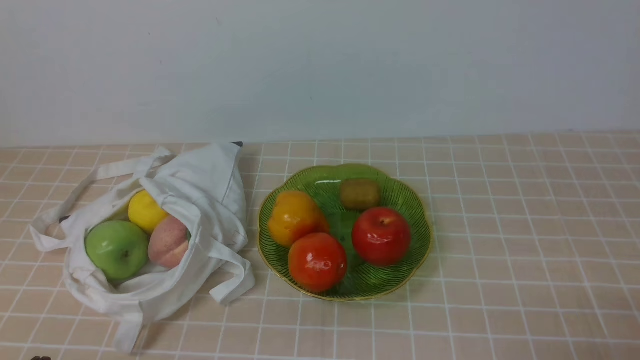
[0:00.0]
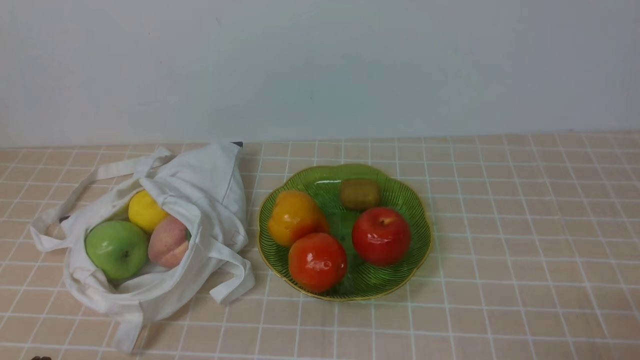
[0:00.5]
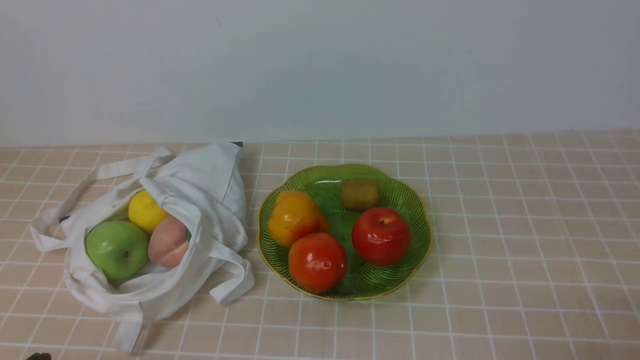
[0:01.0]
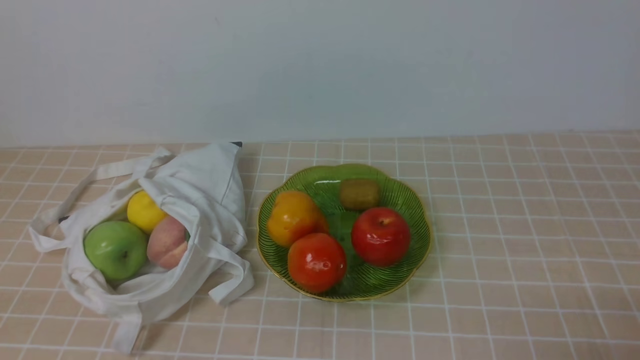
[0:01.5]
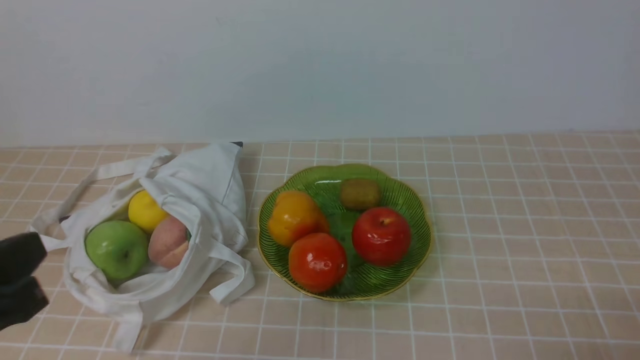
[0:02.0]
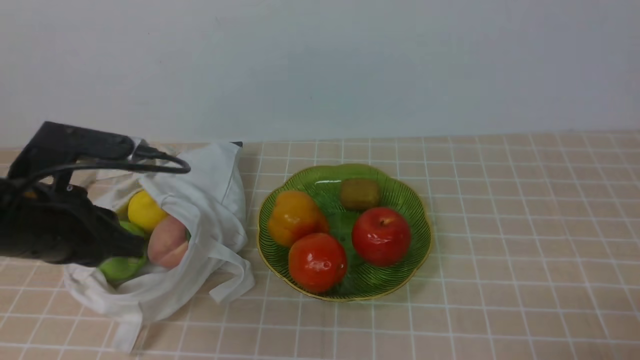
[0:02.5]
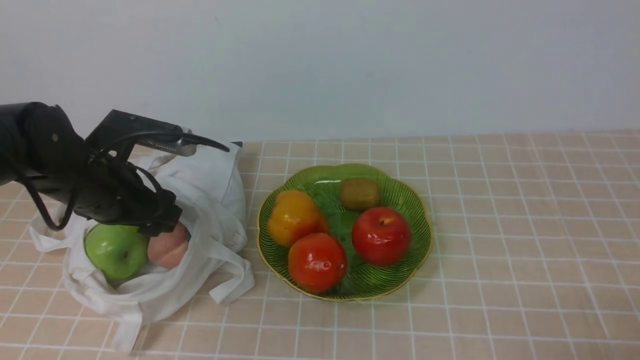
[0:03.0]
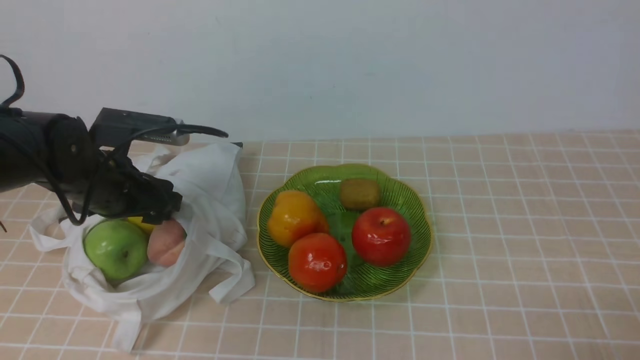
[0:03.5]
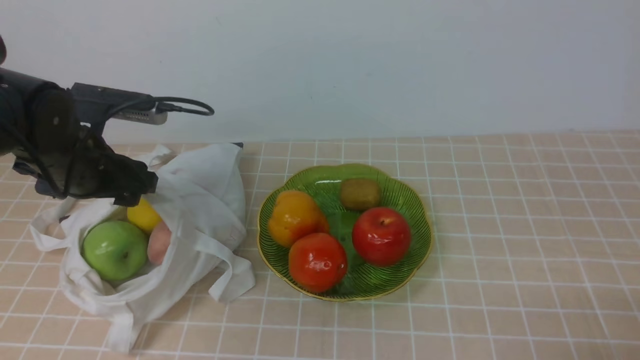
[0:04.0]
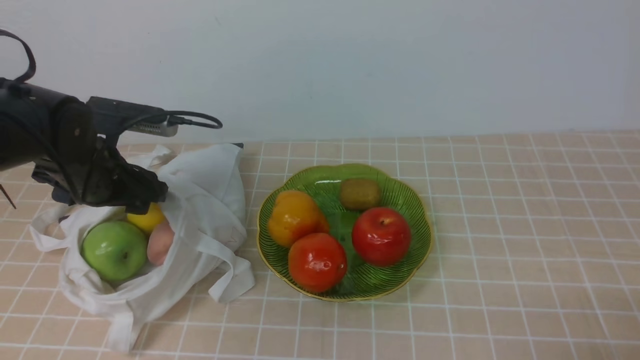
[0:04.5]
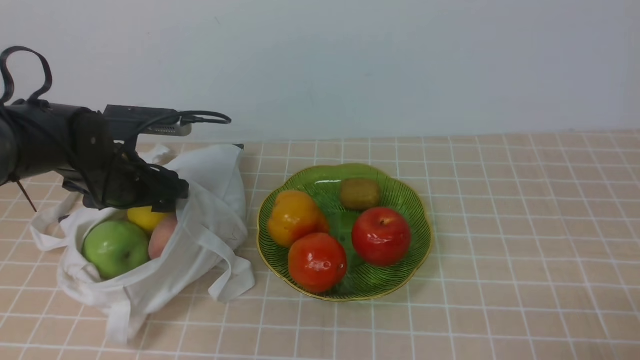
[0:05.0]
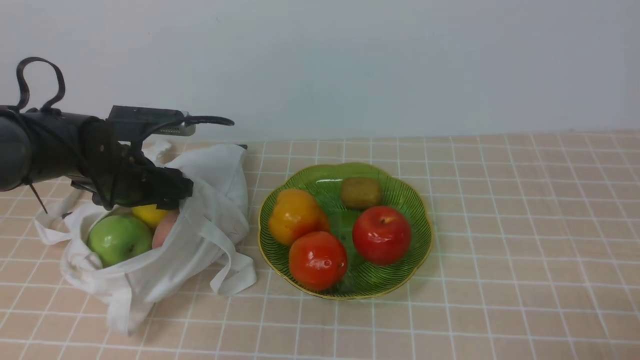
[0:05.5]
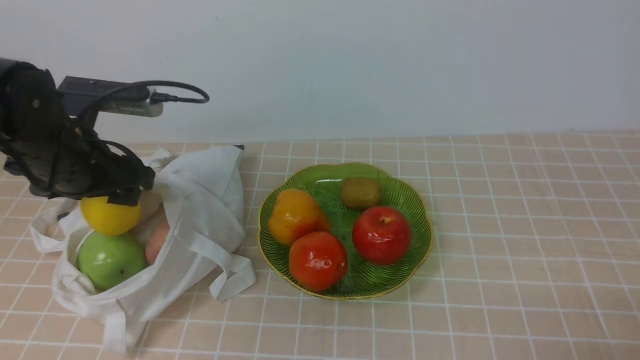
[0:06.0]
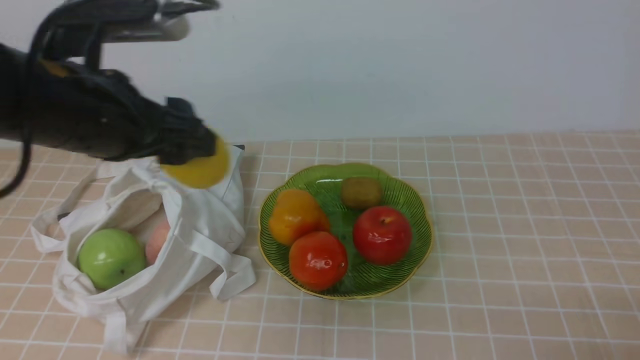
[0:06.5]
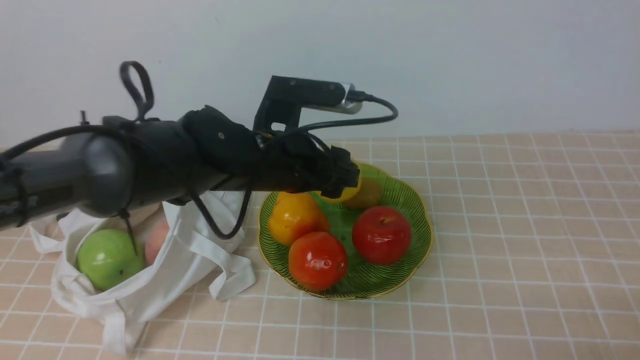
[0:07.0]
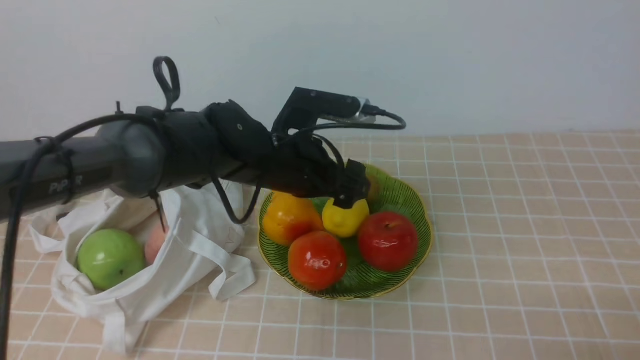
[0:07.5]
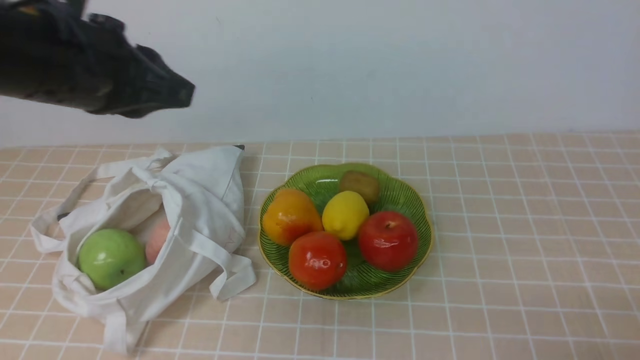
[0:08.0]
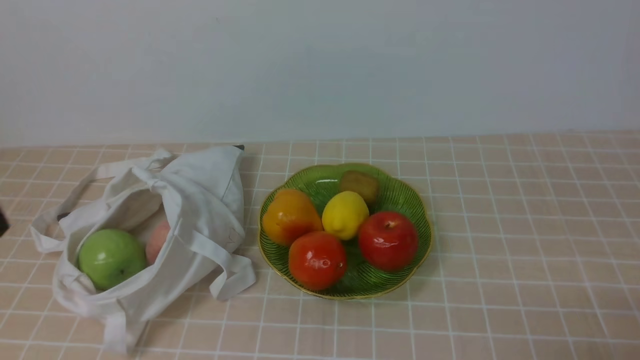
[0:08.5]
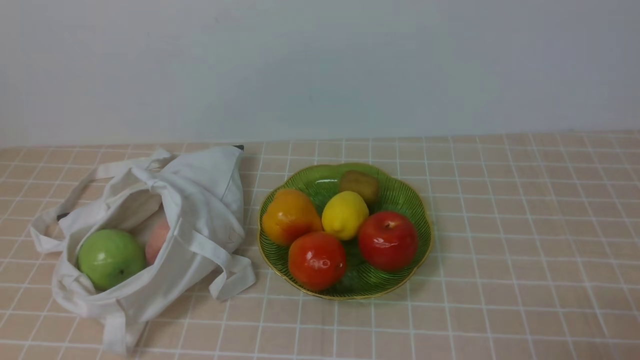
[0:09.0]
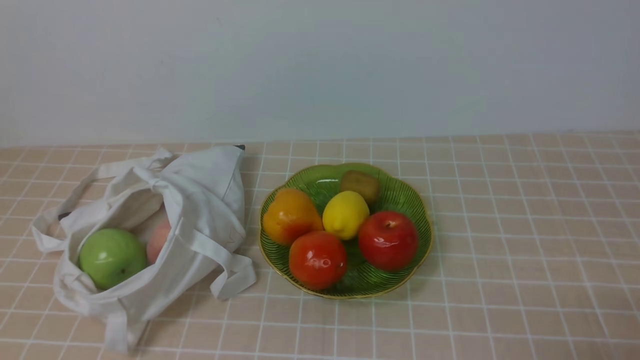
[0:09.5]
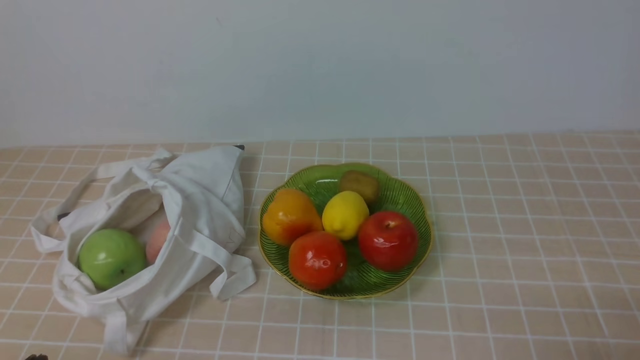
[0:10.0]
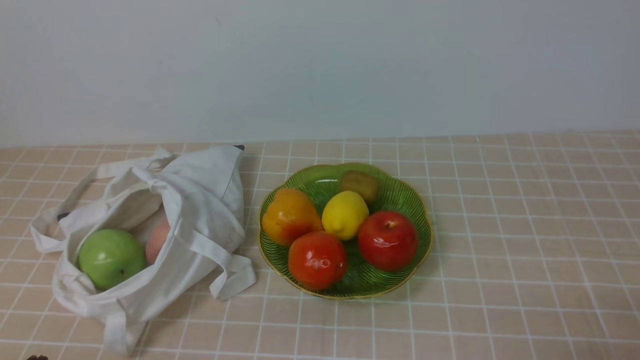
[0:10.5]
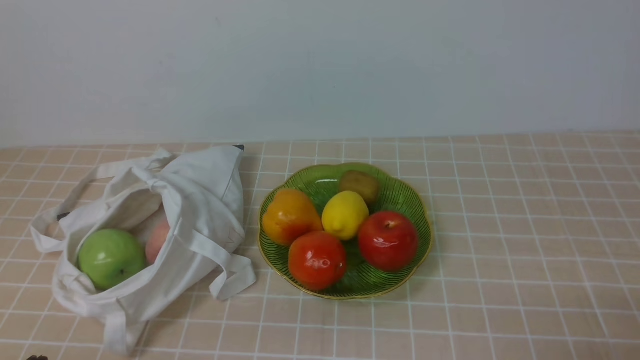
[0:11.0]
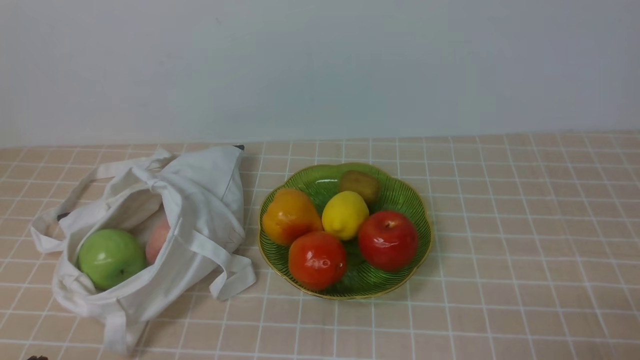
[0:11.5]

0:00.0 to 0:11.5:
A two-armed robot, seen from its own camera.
Step, 0:00.0 to 0:05.5: use the left arm to grab a lemon from the bag.
Step, 0:06.0 to 0:07.5: use the left arm to put the lemon into the empty plate on the right.
0:02.0 to 0:04.0: The left gripper travels forward by roughly 25 cm, and opens up.
0:04.0 to 0:06.0: The grippers move only a little.
0:06.0 to 0:07.5: The left gripper travels to the right by about 20 cm.
0:07.5 to 0:09.5: The left gripper moves backward and to the left, some 40 cm, and closes up.

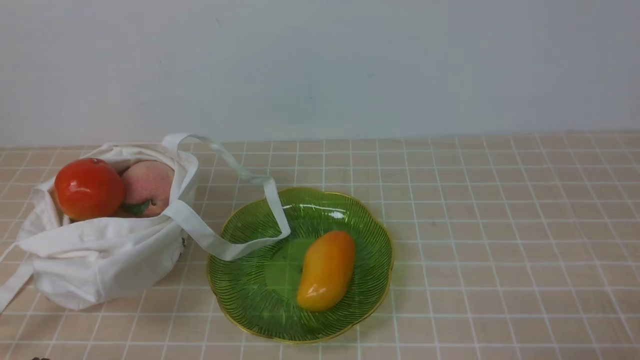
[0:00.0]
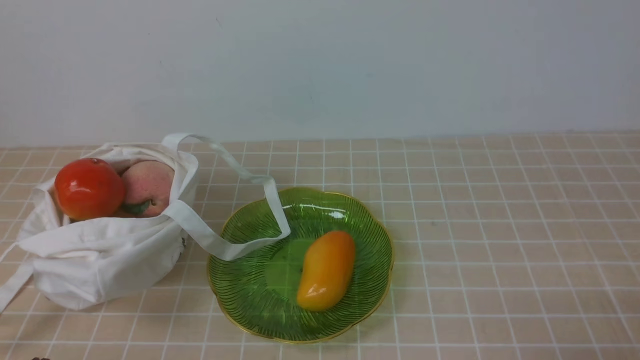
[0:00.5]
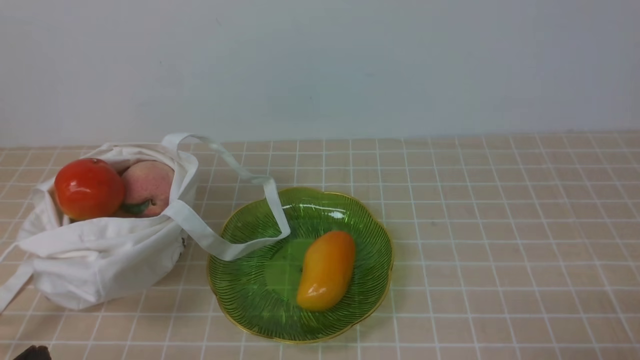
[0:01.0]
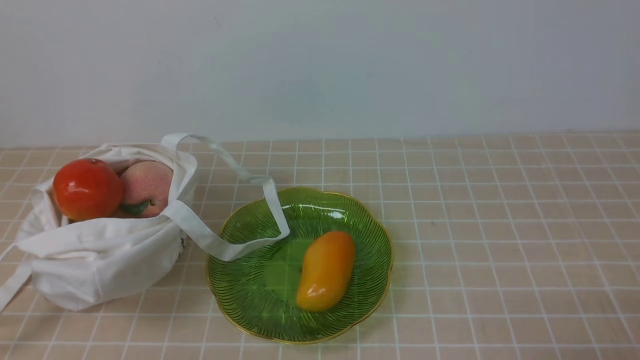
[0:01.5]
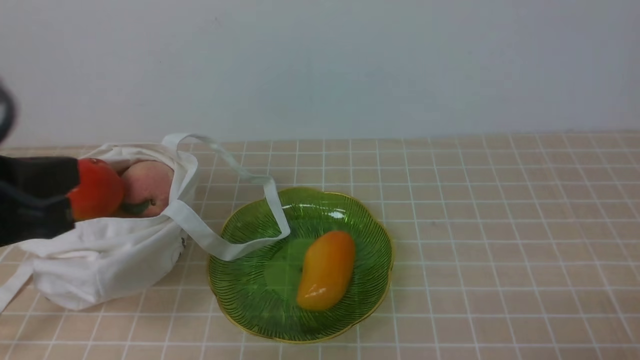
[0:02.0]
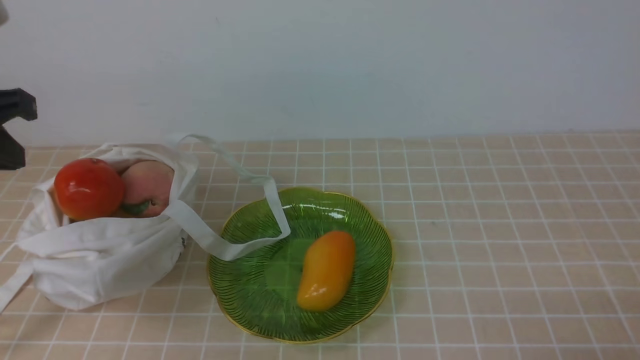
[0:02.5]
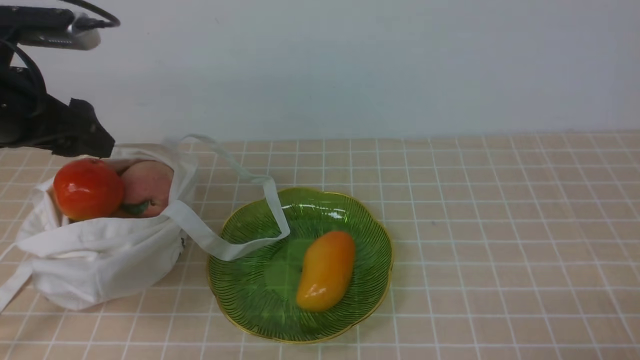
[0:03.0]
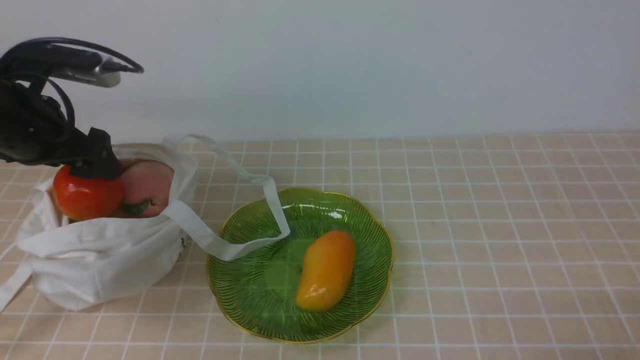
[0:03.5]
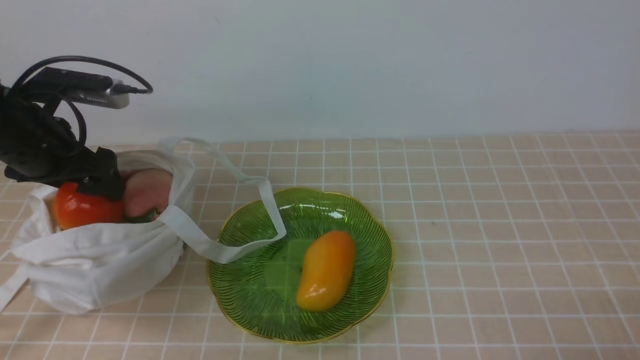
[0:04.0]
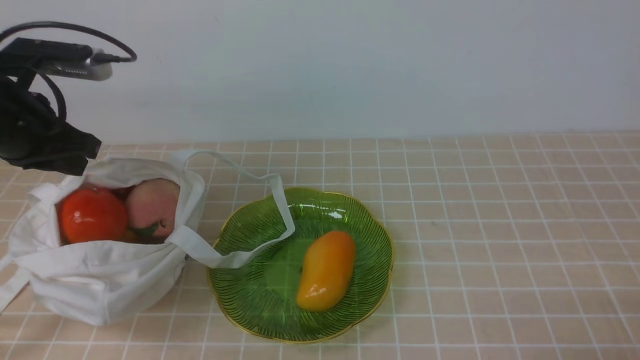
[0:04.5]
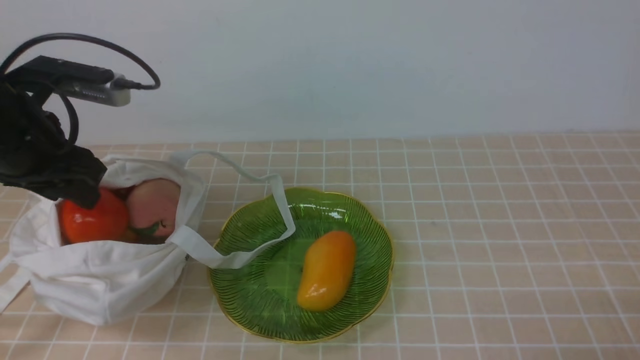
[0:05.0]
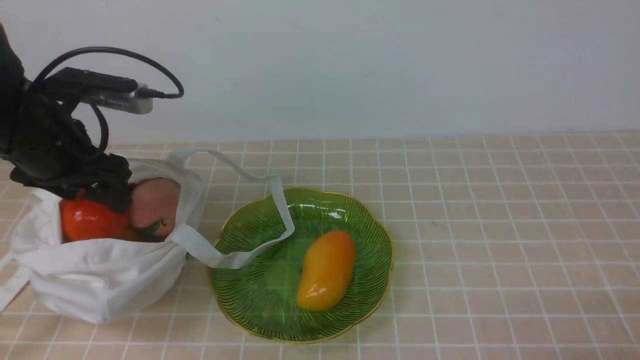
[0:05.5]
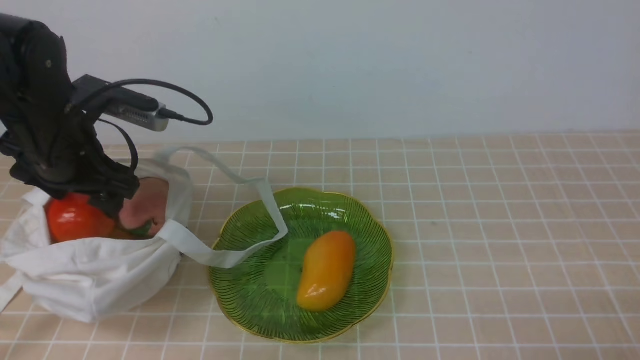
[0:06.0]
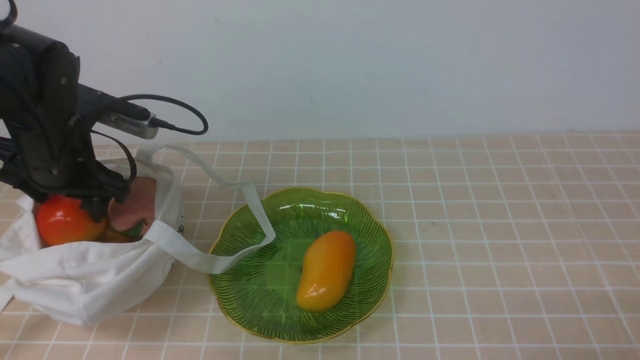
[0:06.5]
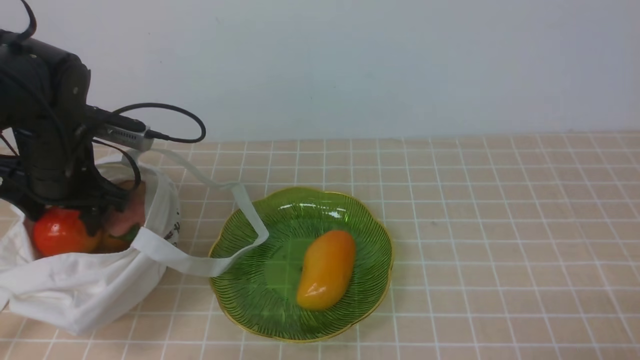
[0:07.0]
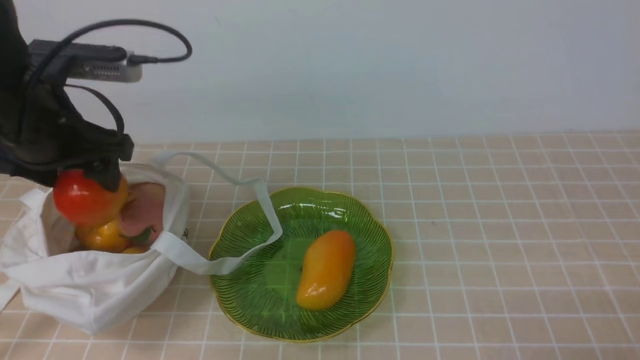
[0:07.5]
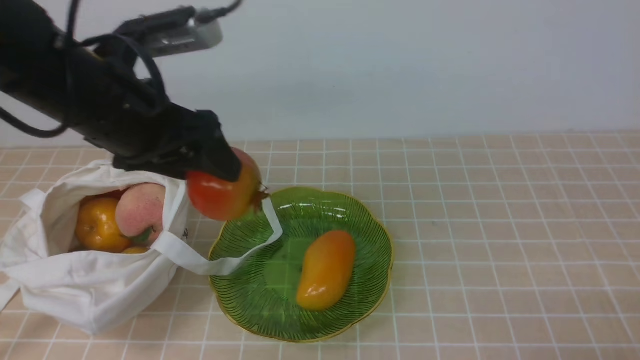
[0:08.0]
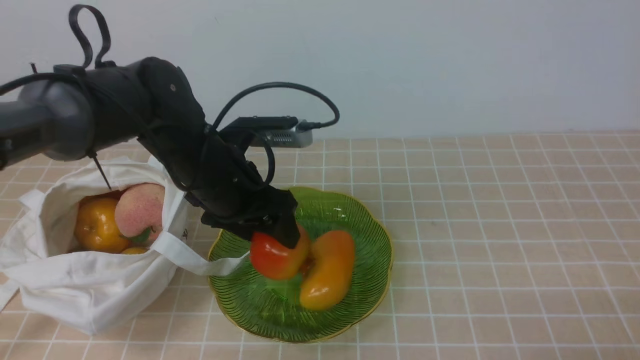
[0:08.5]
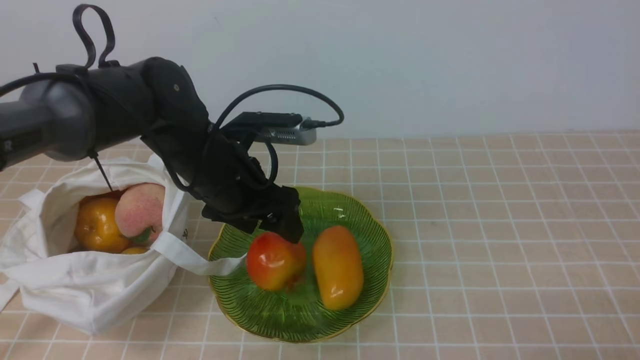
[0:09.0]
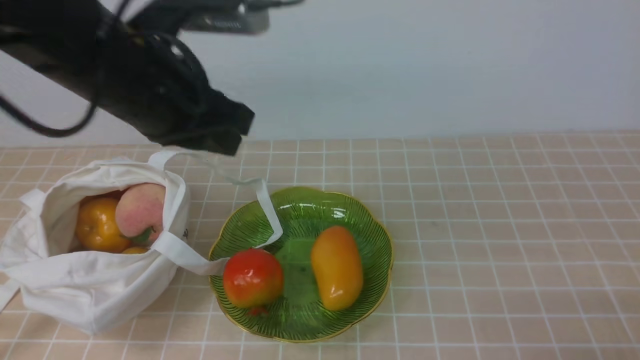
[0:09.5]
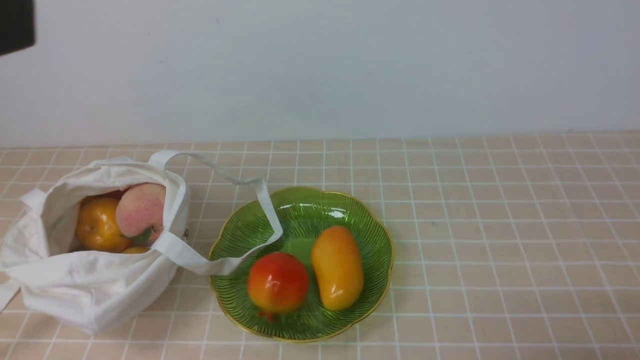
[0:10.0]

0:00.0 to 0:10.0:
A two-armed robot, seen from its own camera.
Step, 0:00.0 to 0:07.0: use the left arm to grab a pomegranate from the bag.
Step, 0:07.5 to 0:09.0: use the left arm to put the pomegranate into the empty plate on the right.
0:00.0 to 0:02.0: The left gripper is displaced upward and forward by about 20 cm.
0:02.0 to 0:04.0: The left gripper heads forward and downward, covering roughly 25 cm, and opens.
0:04.0 to 0:06.0: The left gripper moves some 5 cm, and closes, then reopens.
0:06.0 to 0:08.0: The left gripper heads to the right and upward, covering roughly 10 cm.
0:08.0 to 0:10.0: The left gripper heads backward and upward, covering roughly 25 cm, and closes up.
